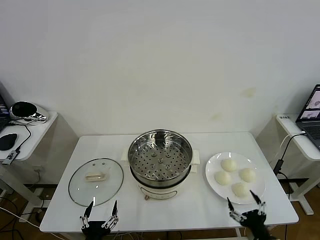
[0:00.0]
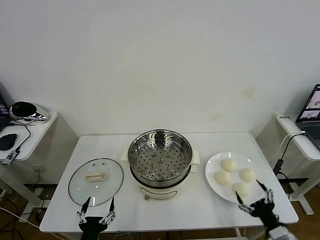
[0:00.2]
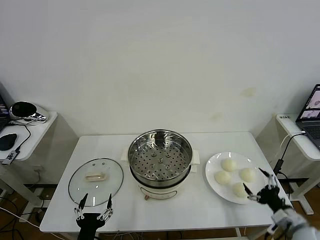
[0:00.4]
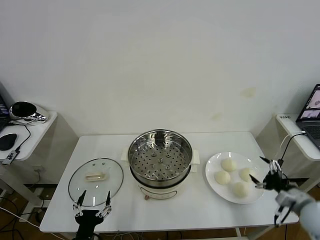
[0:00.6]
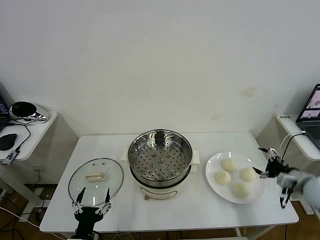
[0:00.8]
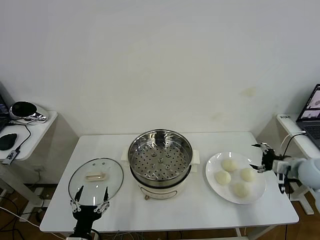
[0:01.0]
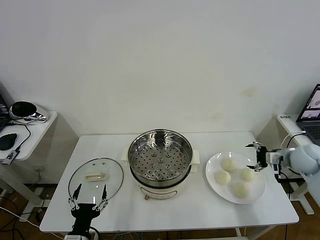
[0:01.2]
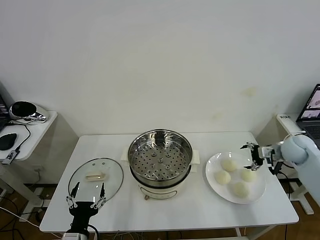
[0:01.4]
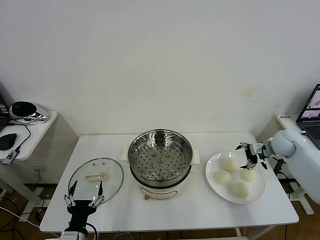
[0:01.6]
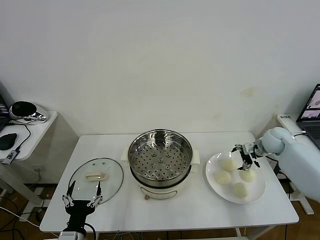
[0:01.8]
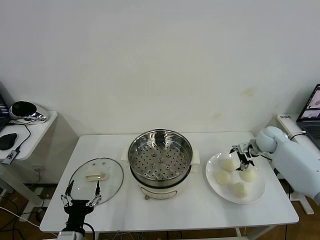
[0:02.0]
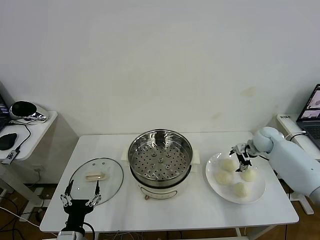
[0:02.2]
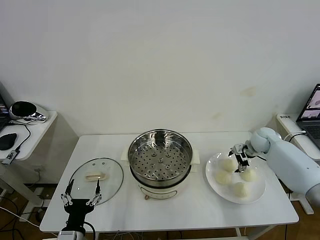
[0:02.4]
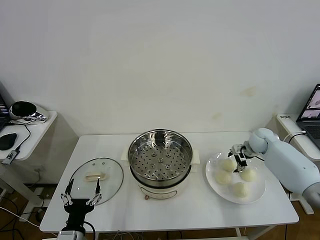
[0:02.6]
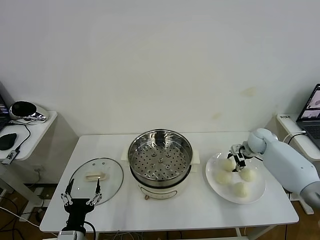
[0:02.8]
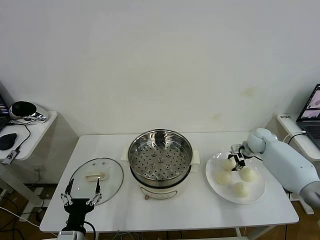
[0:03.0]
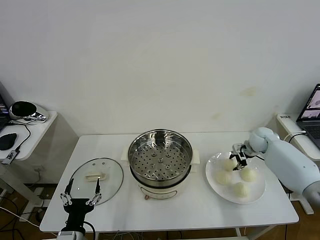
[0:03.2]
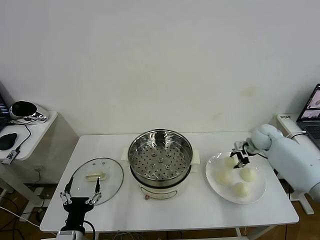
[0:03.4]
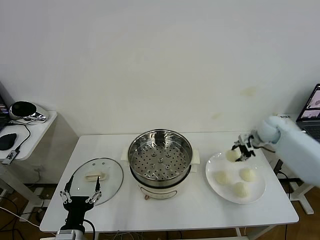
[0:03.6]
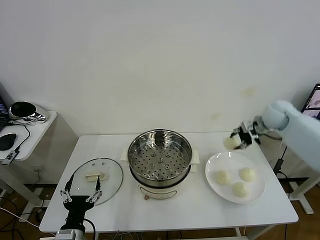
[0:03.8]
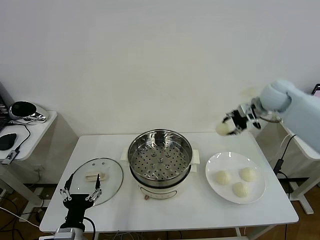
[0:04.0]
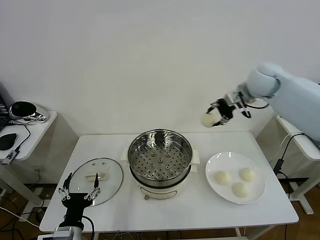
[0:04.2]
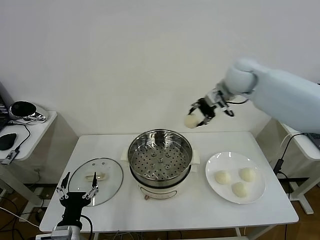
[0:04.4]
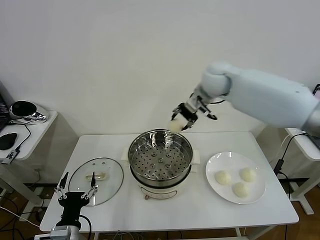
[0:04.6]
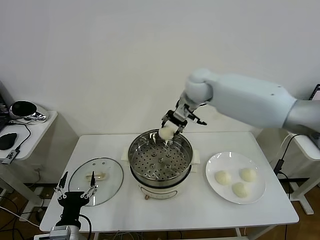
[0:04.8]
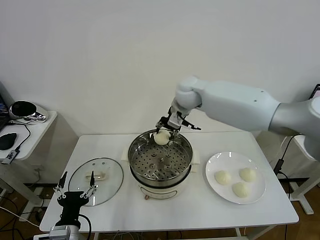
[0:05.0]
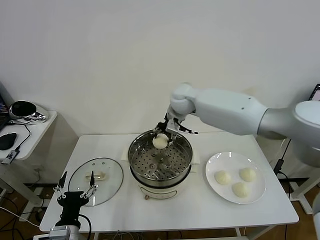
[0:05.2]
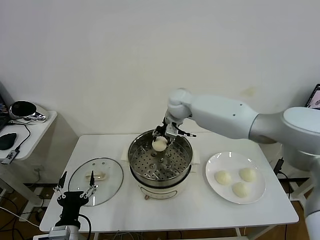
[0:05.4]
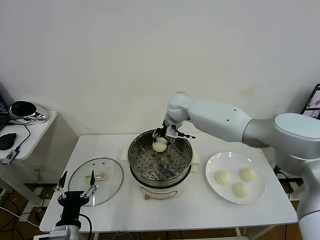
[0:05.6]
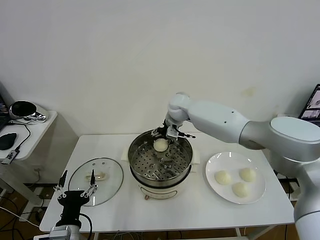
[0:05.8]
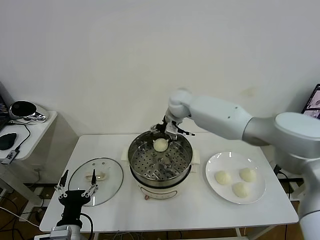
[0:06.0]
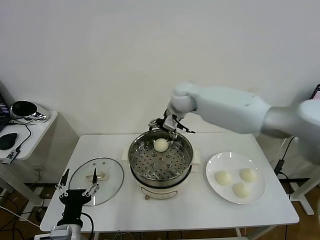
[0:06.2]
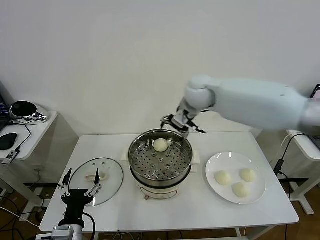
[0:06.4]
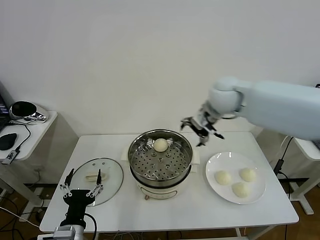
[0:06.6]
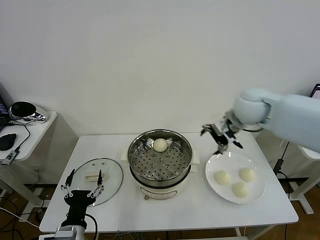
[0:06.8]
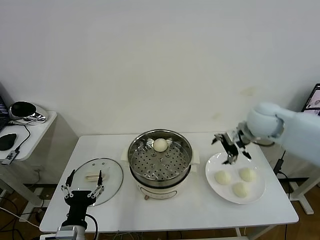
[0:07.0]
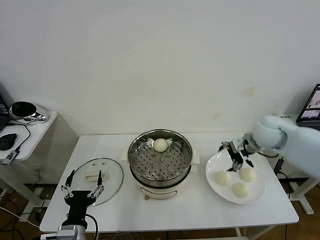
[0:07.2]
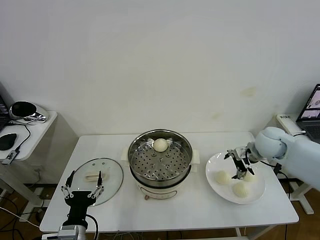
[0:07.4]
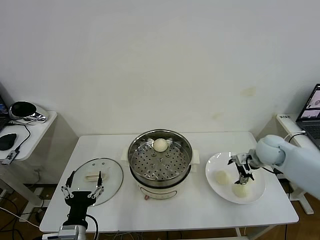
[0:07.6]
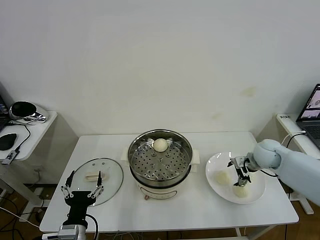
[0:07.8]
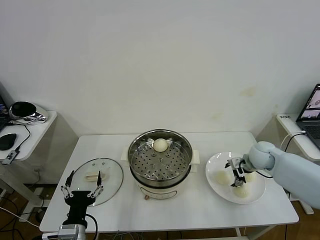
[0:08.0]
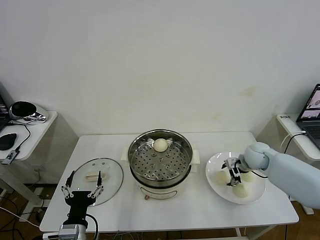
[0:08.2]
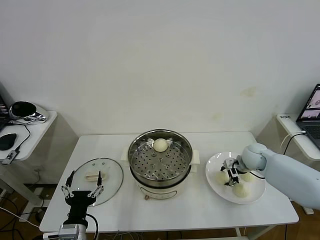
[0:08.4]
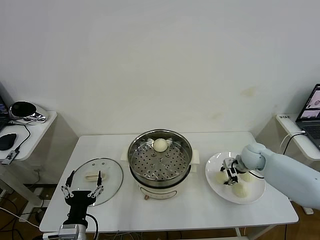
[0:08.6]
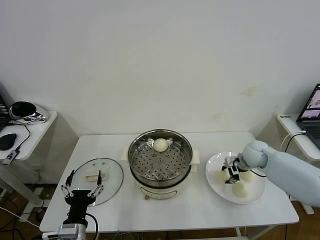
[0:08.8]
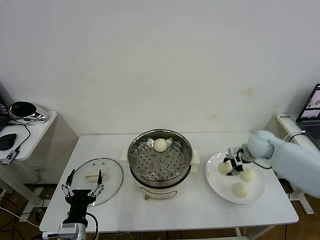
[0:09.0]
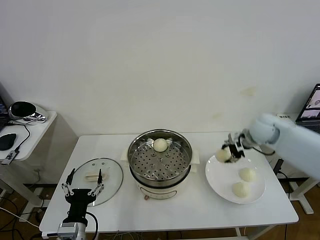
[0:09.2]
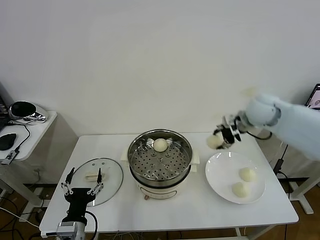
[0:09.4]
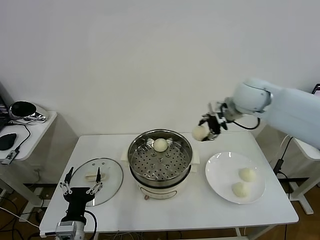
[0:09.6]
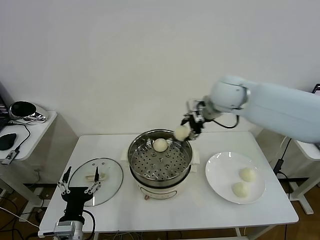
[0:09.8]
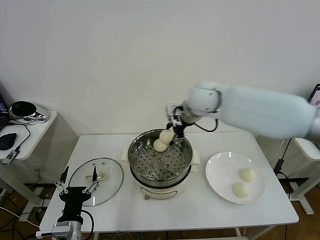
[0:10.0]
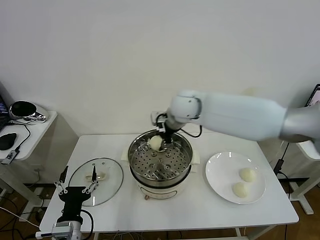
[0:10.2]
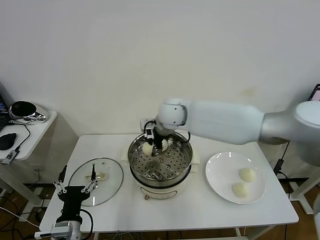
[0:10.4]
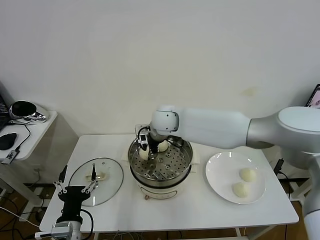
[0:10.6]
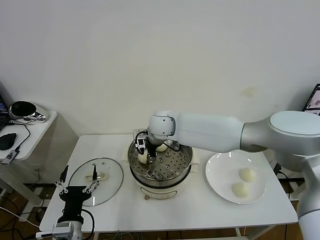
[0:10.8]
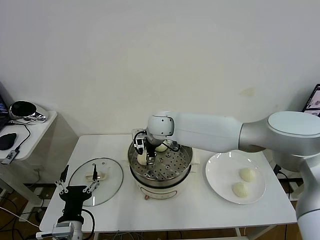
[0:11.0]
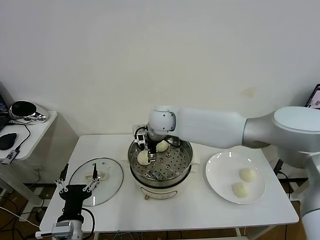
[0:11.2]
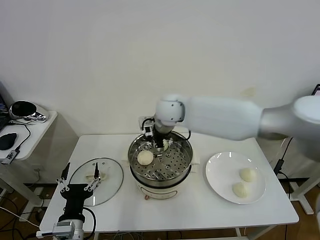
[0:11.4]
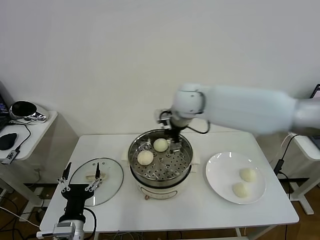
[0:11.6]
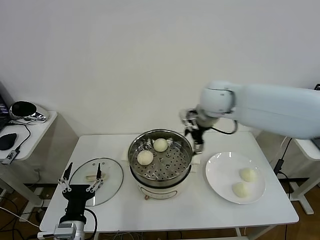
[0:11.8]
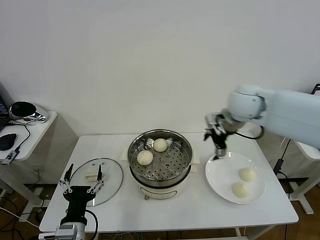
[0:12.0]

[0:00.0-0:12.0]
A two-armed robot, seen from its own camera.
Task of the whole recording: take steamed baozi put them in steamer then cover it.
Step, 0.0 to 2.8 s: Grasp the baozi in the plate with right gripper.
Step, 3.0 to 5.8 s: Place the baozi on the steamer with right gripper.
Step, 6.0 to 8.6 s: Grasp the baozi in the plate with right gripper.
Step, 8.8 to 11.0 s: Place the baozi on the steamer with right gripper.
1.6 to 3.0 s: The right gripper shifts by roughly 5 cm, and closes its fingers.
3.0 to 4.4 s: The right gripper heads upward and to the left, covering roughly 35 cm.
4.4 to 6.0 s: The right gripper goes about 15 cm to the left and downward, and opens up.
6.0 to 7.6 s: The right gripper travels to the right, downward and backward by about 35 cm.
7.6 to 9.0 s: The right gripper moves some 5 cm, and closes.
9.0 to 10.4 s: The right gripper shifts roughly 35 cm to the left.
10.4 to 12.0 s: The right gripper shifts about 25 cm to the right, and opens.

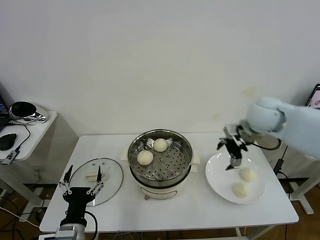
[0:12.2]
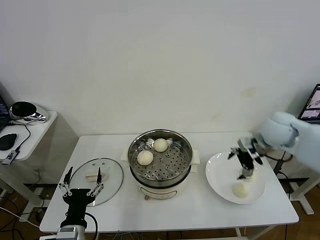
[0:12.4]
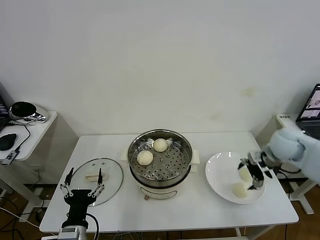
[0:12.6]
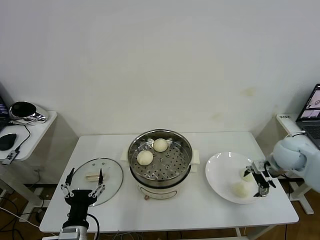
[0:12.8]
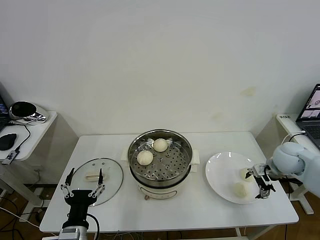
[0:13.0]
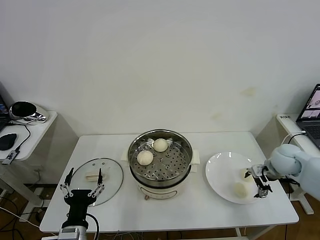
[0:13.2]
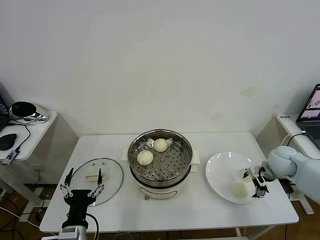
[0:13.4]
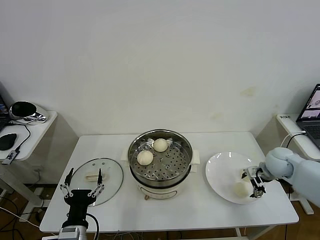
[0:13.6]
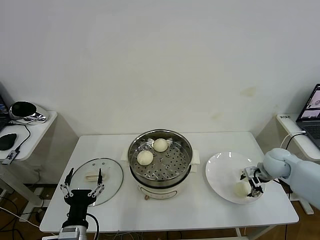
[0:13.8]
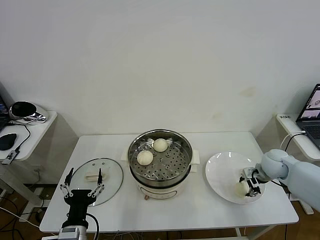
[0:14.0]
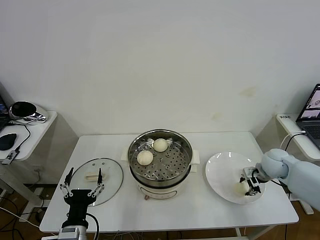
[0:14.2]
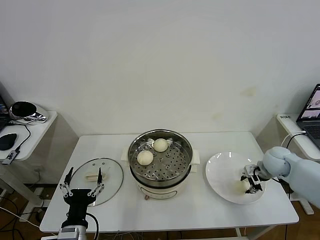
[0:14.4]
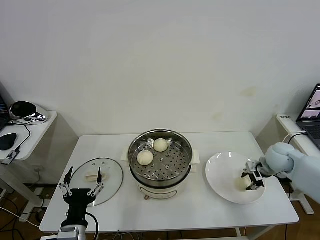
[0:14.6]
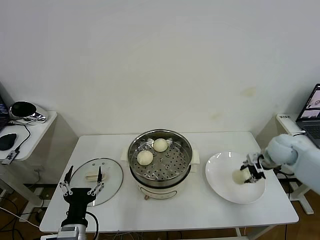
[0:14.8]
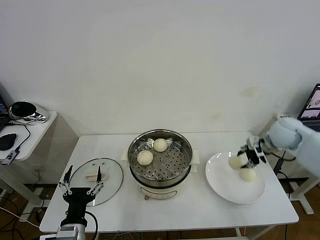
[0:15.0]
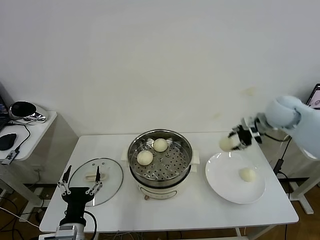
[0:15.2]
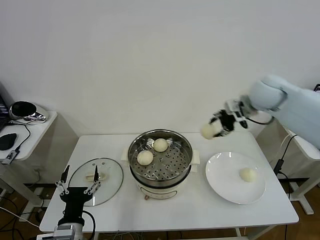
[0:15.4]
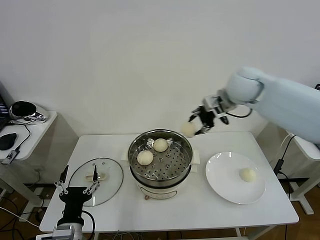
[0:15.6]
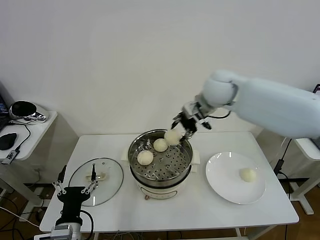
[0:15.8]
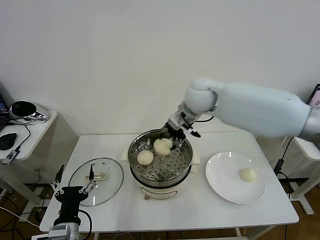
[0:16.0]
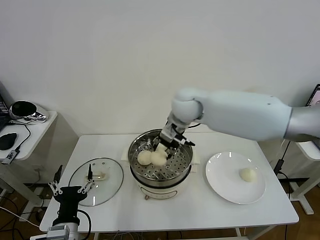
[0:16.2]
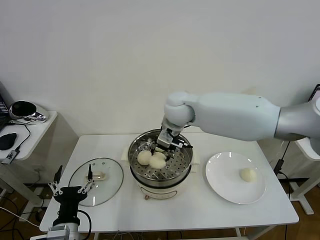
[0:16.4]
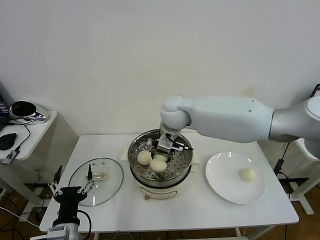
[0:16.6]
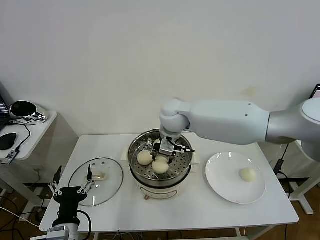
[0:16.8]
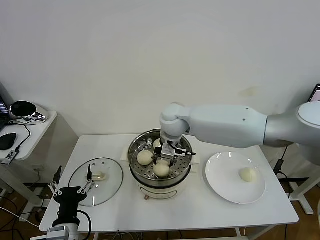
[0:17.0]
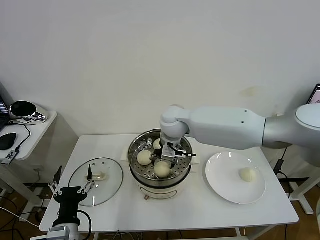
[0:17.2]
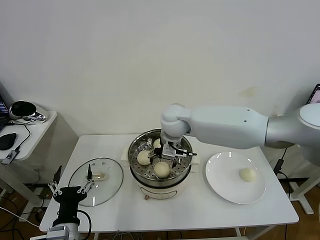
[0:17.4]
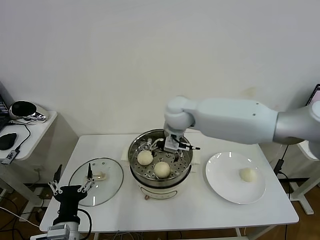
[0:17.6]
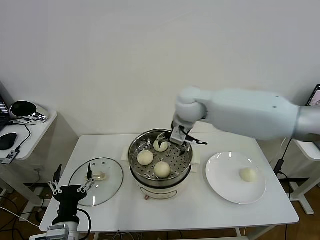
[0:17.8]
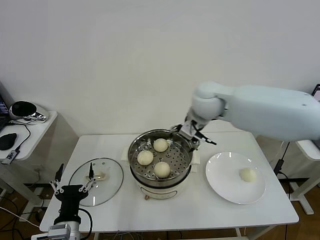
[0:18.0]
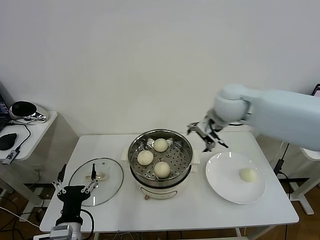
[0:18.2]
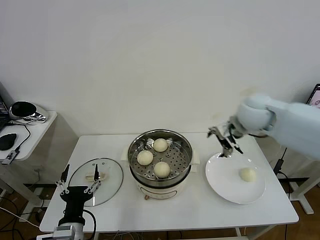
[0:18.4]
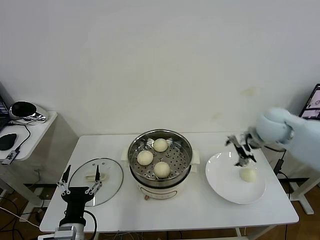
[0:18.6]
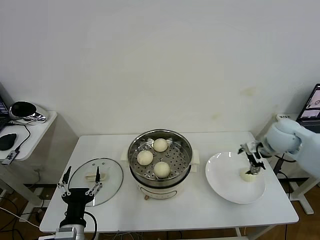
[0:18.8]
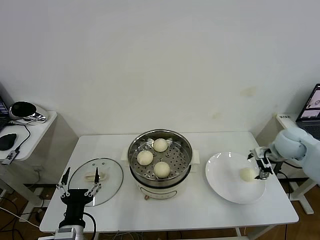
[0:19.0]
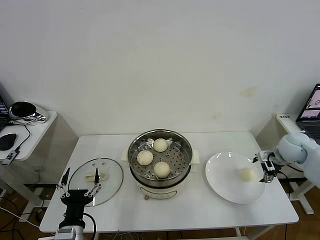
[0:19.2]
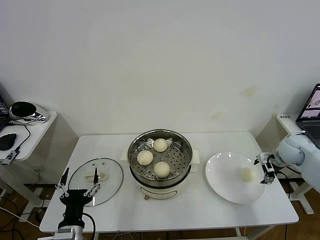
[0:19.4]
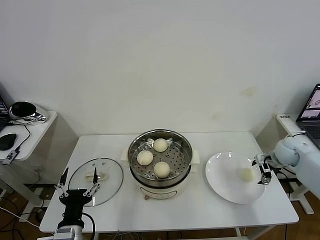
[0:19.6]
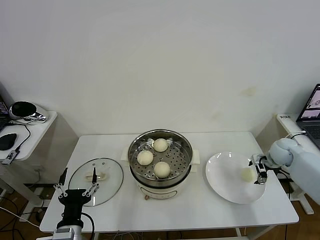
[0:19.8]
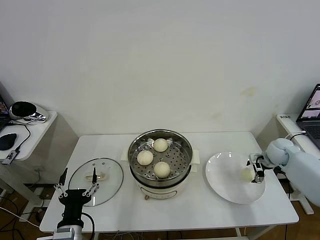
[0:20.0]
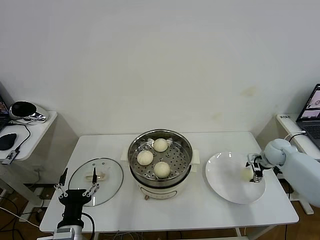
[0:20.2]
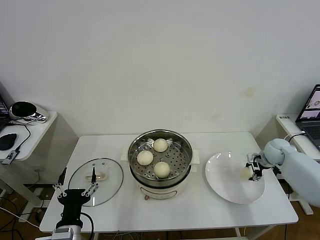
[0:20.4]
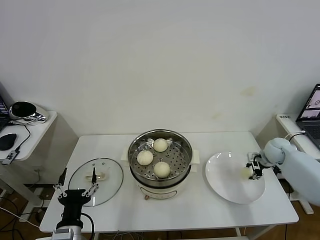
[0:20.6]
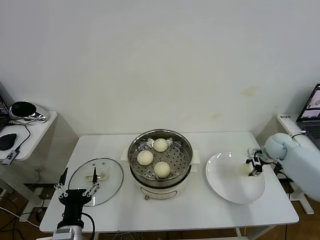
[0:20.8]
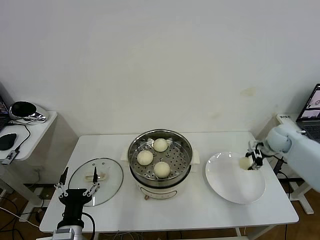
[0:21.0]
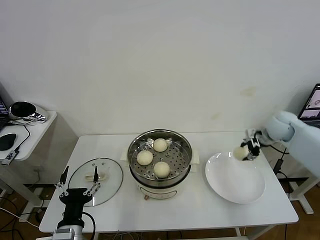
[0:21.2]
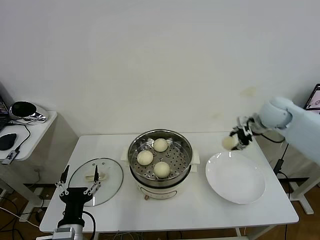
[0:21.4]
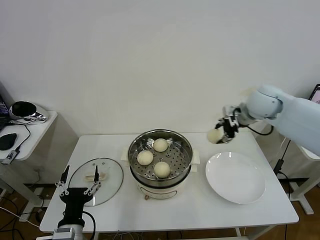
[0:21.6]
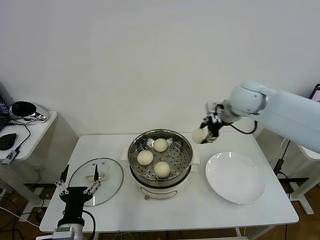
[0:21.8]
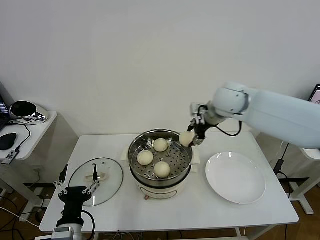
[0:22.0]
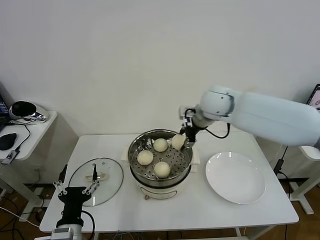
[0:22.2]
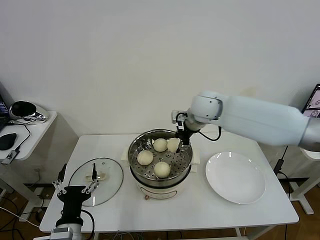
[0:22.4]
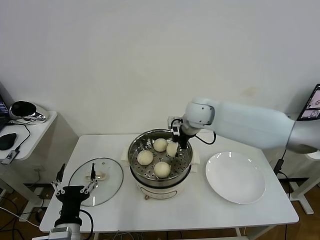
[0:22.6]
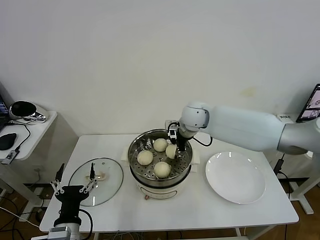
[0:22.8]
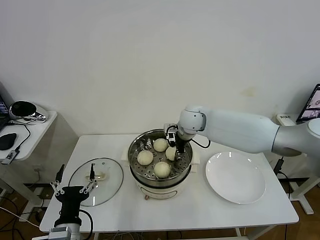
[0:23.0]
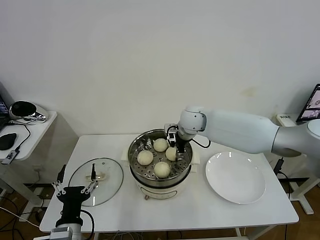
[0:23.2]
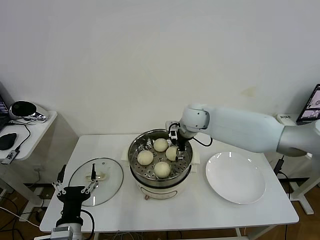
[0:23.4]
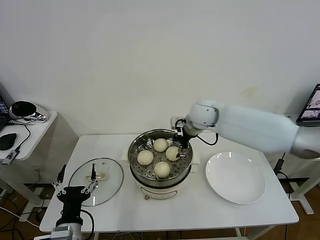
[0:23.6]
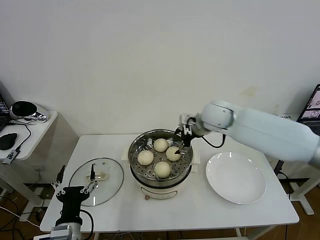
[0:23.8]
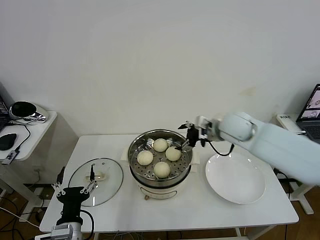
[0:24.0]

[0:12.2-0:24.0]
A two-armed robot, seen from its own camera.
Task of the whole recording: take steamed baozi put them in steamer then cover it.
Step, 12.2 to 14.0 s: Grasp the baozi in the plate with right gripper.
Step, 14.2 to 17.4 s: Place the baozi on the steamer with right gripper.
Step, 17.6 to 20.6 s: Grasp the baozi in the plate with right gripper.
Step, 20.8 to 23.4 s: Place the baozi on the steamer with right gripper.
12.2 to 13.6 s: The right gripper heads downward and to the right, covering some 20 cm.
13.6 to 15.2 s: The right gripper goes approximately 20 cm upward, and closes up.
15.2 to 16.6 s: The right gripper moves to the left, about 30 cm.
16.6 to 18.2 s: The right gripper moves to the right, approximately 15 cm, and opens its fingers.
18.2 to 19.6 s: The right gripper travels to the right and downward by approximately 35 cm.
19.6 to 21.0 s: The right gripper shifts by roughly 5 cm, and closes.
21.0 to 22.6 s: The right gripper is displaced to the left by roughly 30 cm.
22.6 to 24.0 s: The right gripper travels to the right and backward by some 10 cm, and opens.
